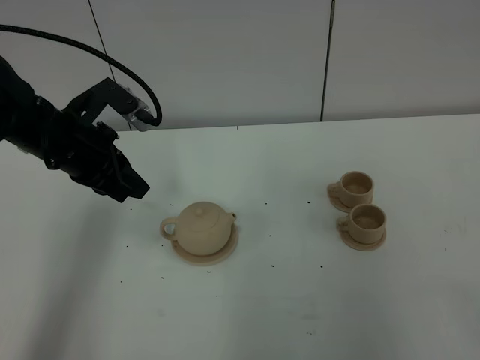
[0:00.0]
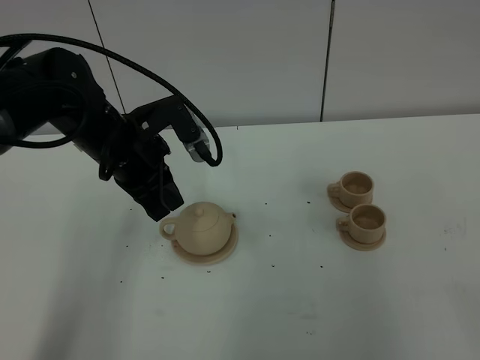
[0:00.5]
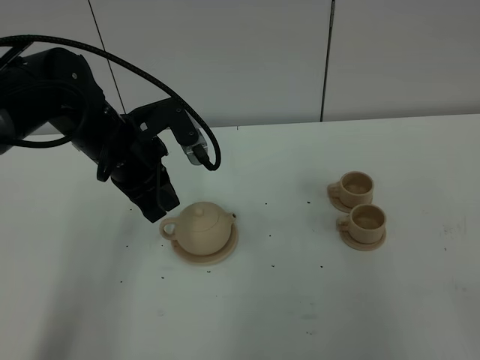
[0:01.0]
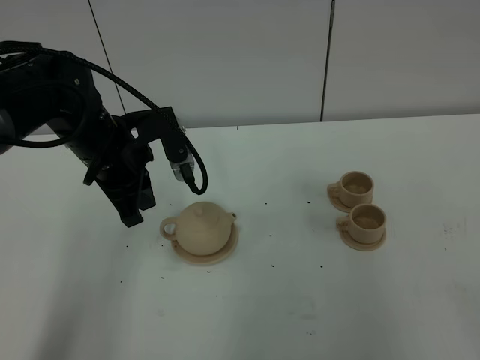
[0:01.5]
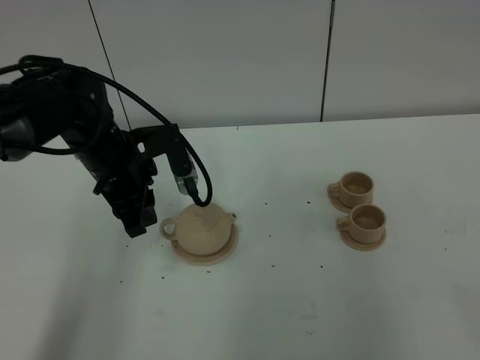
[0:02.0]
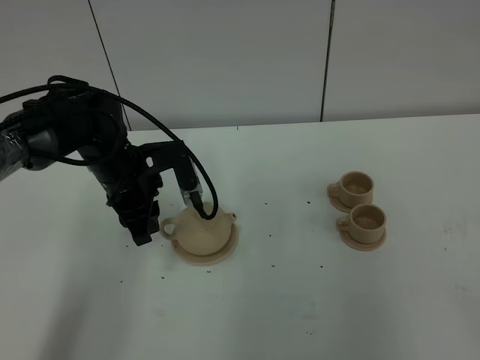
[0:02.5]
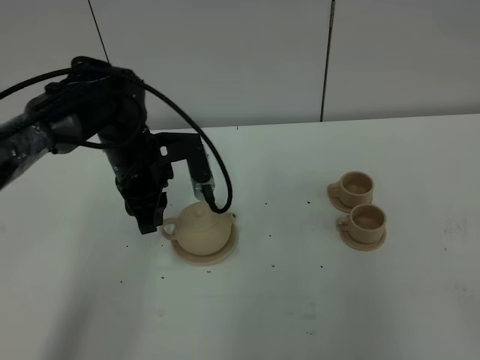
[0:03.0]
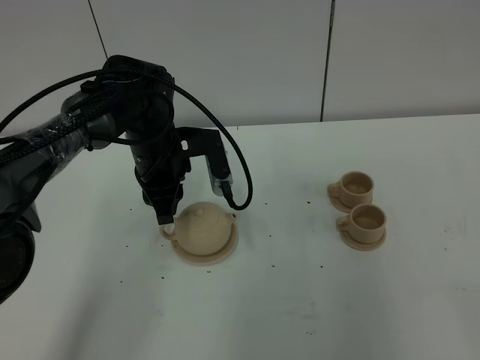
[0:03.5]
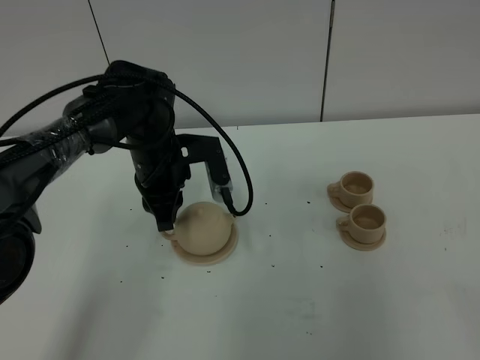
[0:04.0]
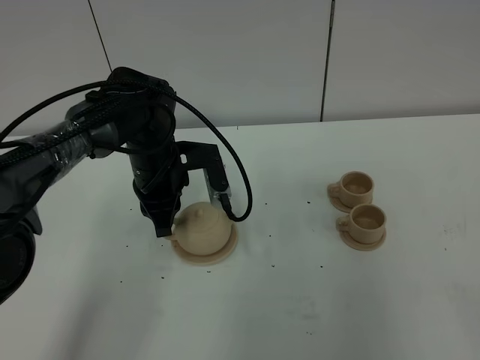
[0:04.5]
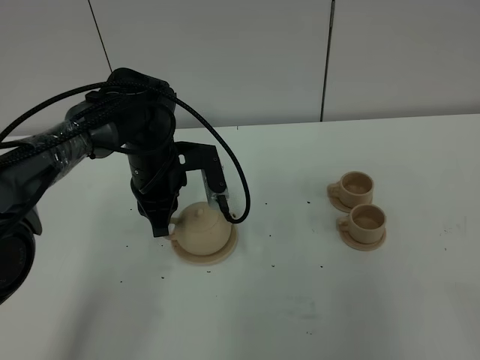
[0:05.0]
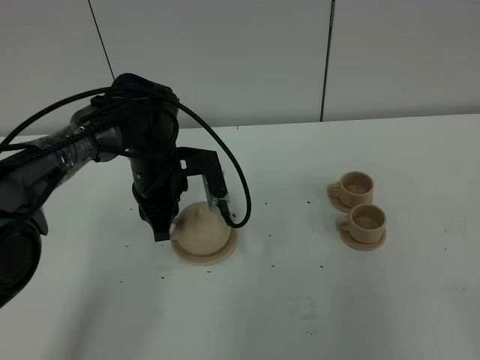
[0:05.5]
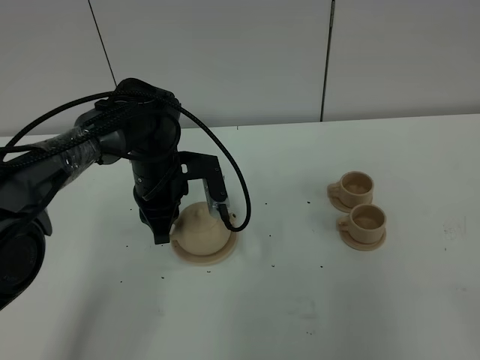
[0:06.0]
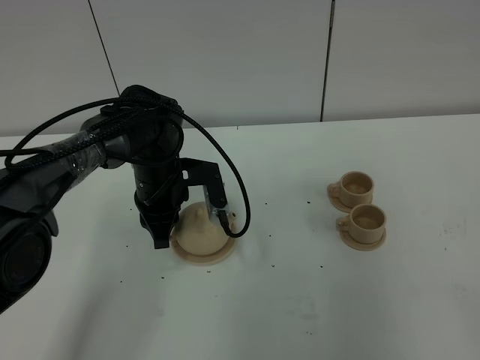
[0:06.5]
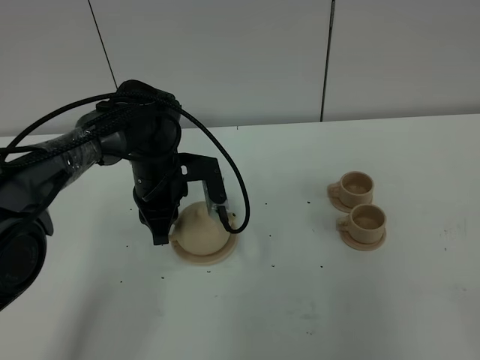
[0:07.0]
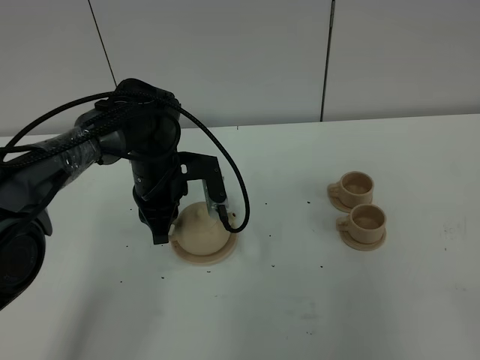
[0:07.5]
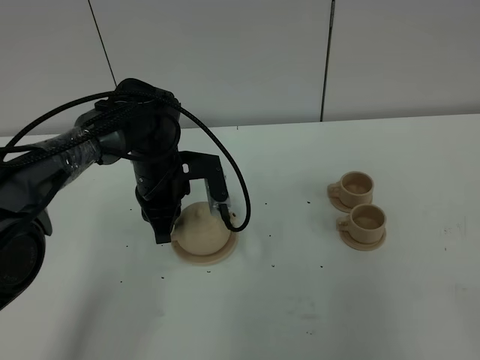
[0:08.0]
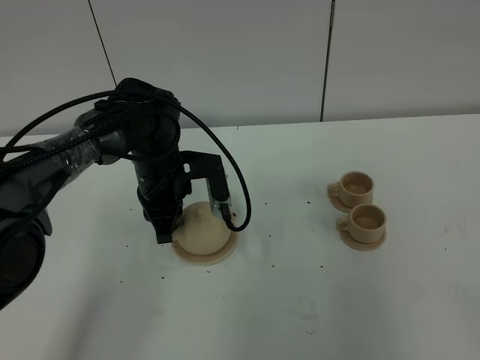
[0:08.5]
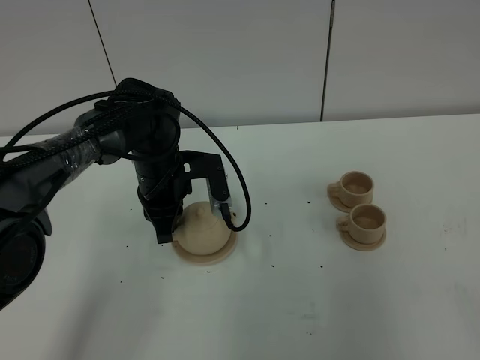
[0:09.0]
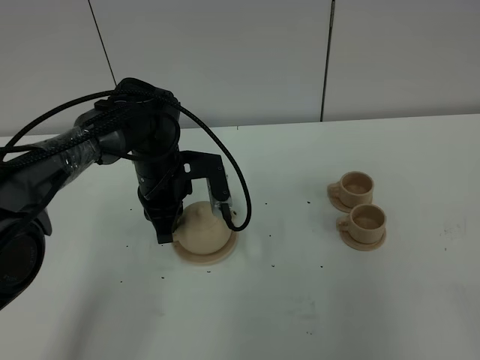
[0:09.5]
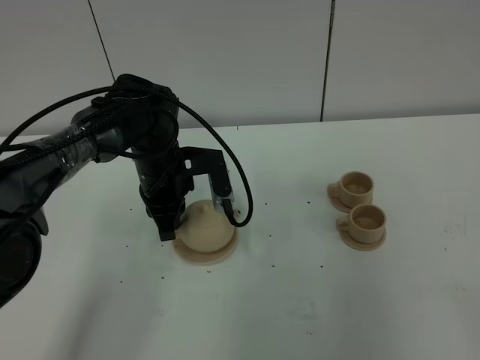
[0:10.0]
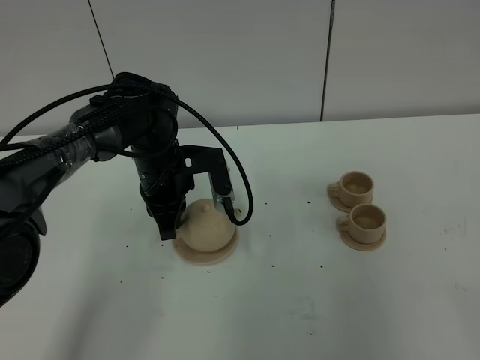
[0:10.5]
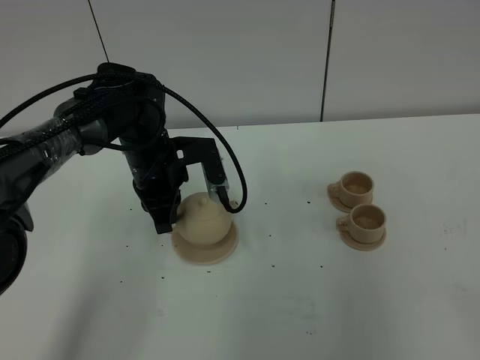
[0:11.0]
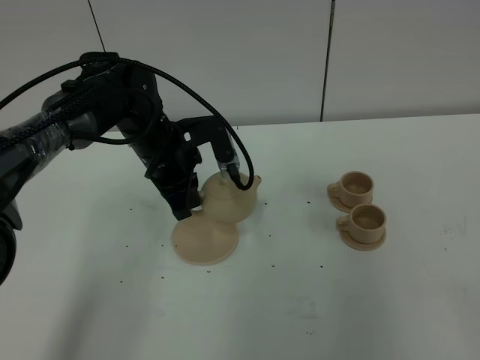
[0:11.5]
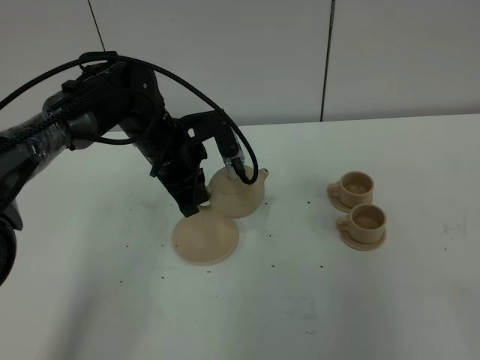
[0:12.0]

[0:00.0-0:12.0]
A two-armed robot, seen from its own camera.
Task of the whole recording: grasp the brown teapot and pour the tea into the two brown teacups one by one, put the brown teapot back in its original place.
Step, 0:00.0 to 0:11.0: Pick up the teapot with the left gripper.
0:00.0 to 0:02.0: The left gripper shifts by roughly 5 cm, and opens up.
0:02.0 to 0:04.0: The left gripper ends up about 5 cm from where it was.
0:04.0 to 0:06.0: The grippers make only small movements.
0:06.0 to 0:10.0: Both grippers stay about where they are.
0:10.0 to 0:12.0: The grippers move only a little.

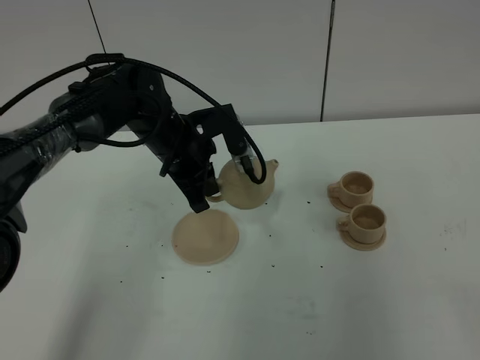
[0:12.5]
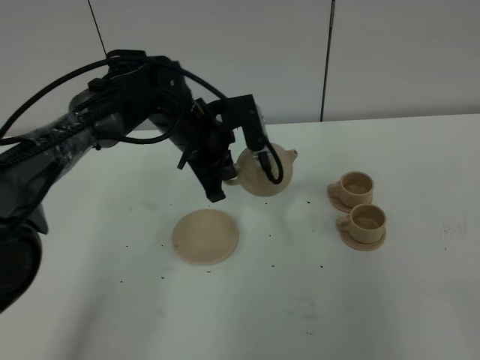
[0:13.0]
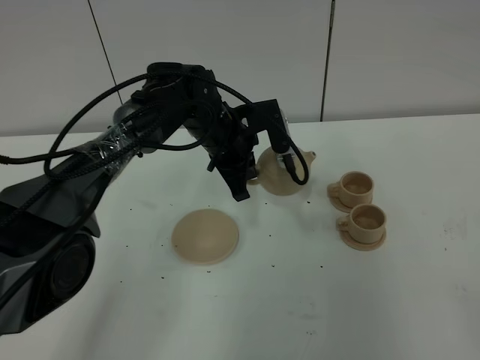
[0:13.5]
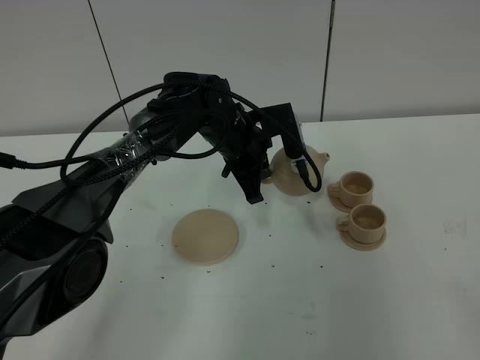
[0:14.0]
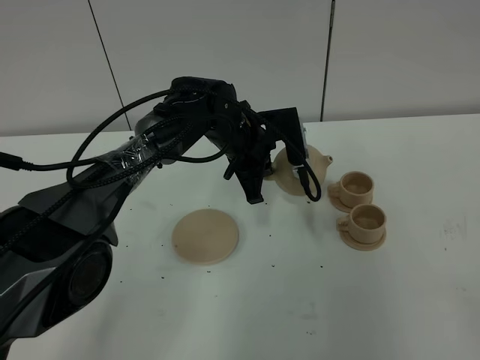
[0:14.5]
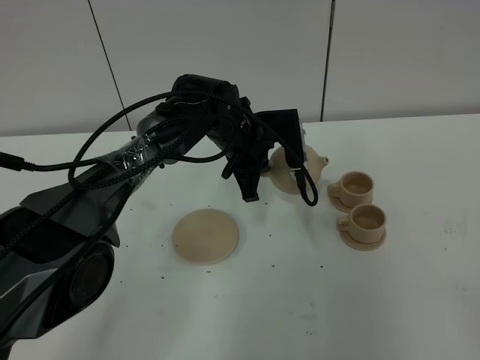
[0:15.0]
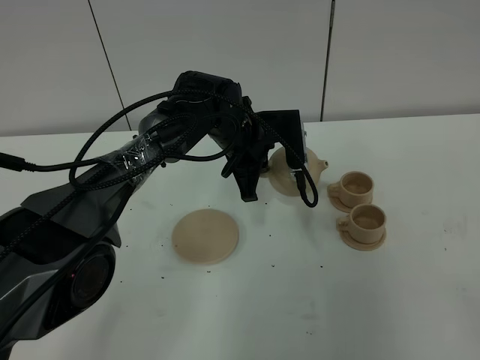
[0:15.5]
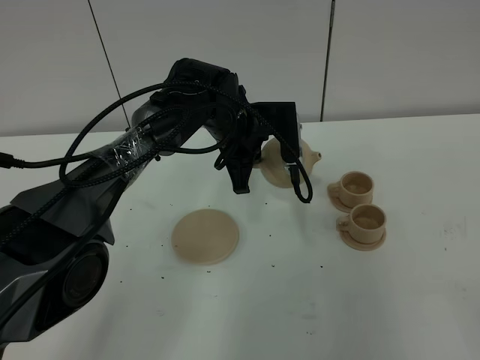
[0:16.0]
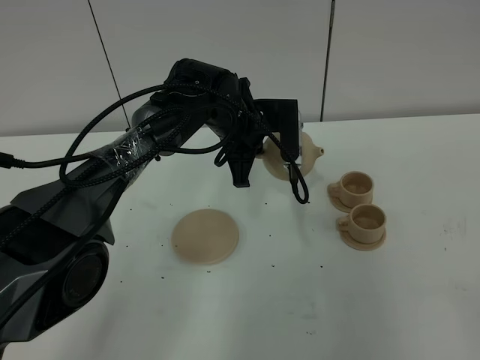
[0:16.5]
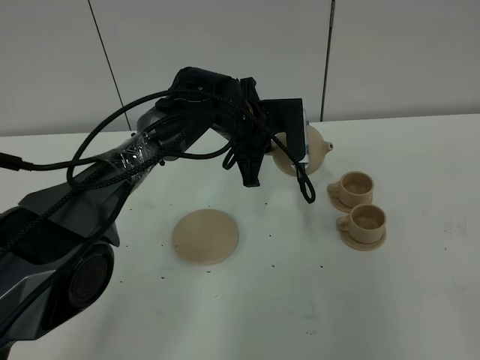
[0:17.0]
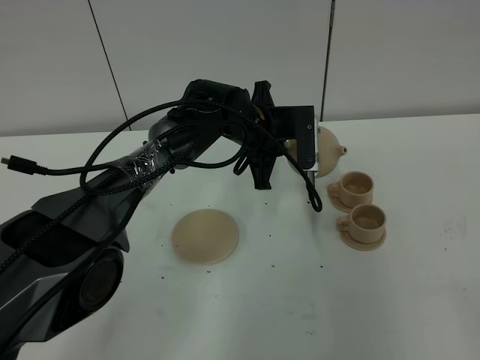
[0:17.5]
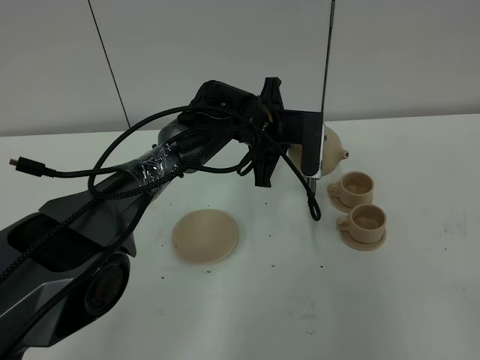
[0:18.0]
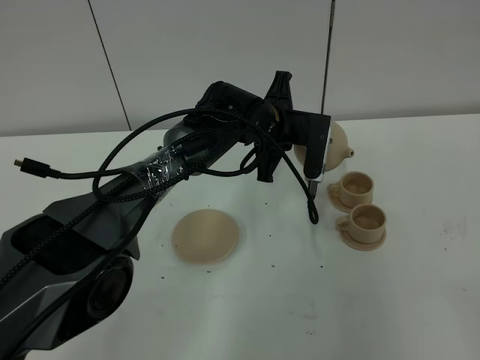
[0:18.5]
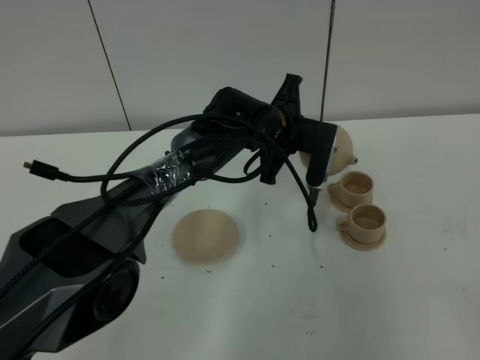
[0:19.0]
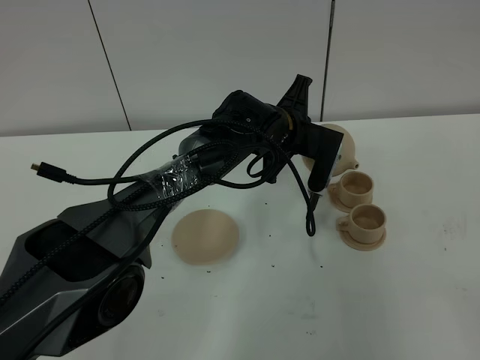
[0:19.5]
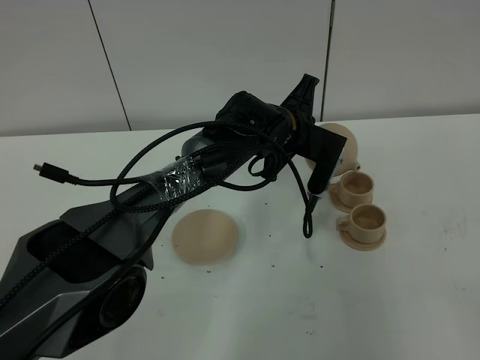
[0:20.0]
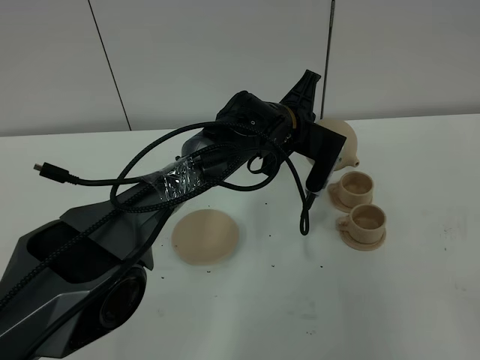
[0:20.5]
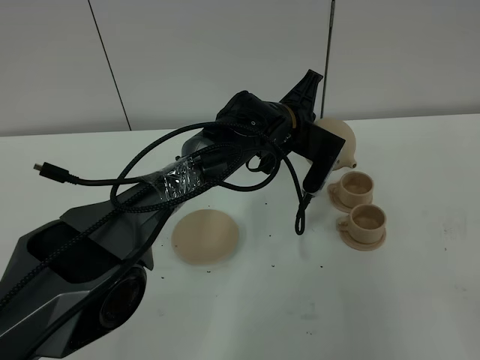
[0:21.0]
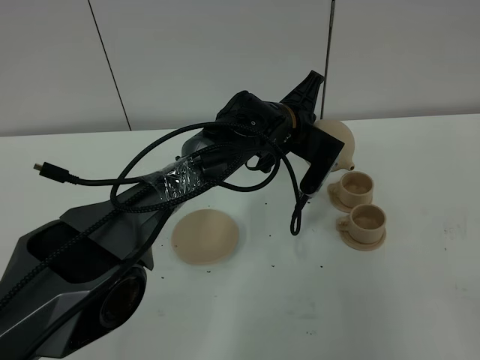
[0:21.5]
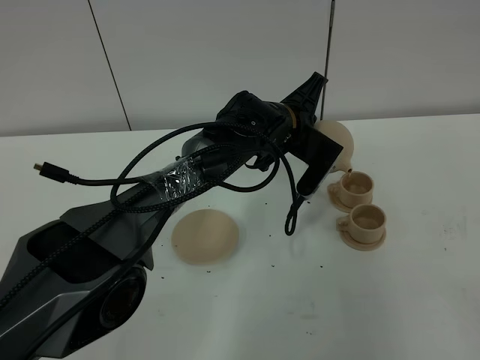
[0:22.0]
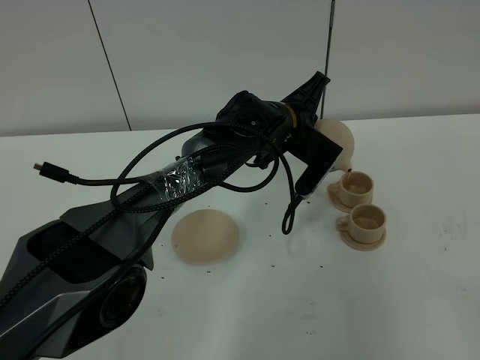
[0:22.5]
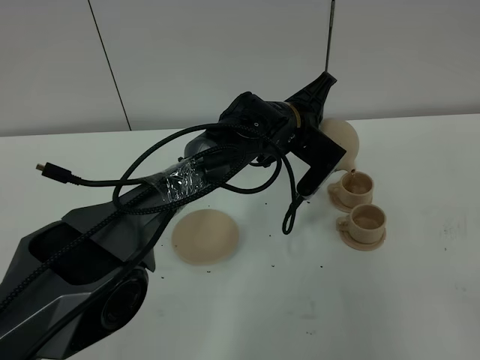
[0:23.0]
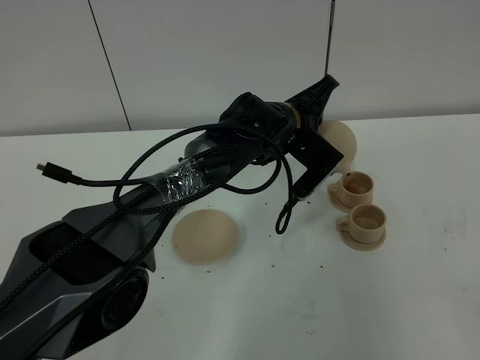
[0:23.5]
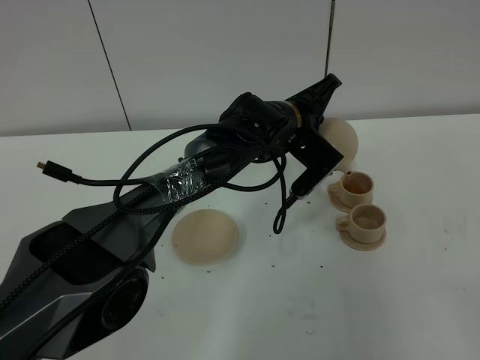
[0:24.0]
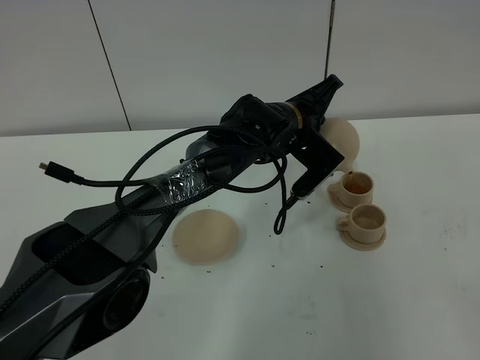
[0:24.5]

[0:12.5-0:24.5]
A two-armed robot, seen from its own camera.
Task of the whole recording: grasp the brown teapot and pour the tea into the two brown teacups one by one, put the brown teapot back in its original place.
0:12.5 to 0:14.5: The left gripper travels to the right by about 10 cm.
0:14.5 to 0:16.5: There are only small adjustments of the grippers.
0:18.5 to 0:20.5: The grippers make only small movements.
0:20.5 to 0:22.5: The grippers make only small movements.
0:22.5 to 0:24.5: The grippers make only small movements.

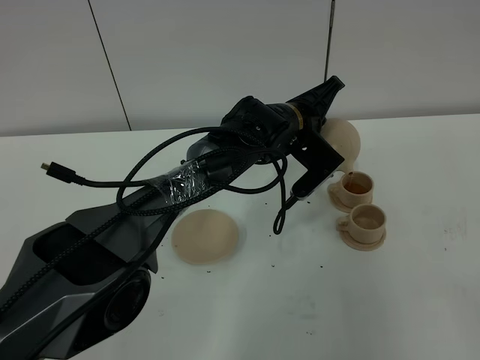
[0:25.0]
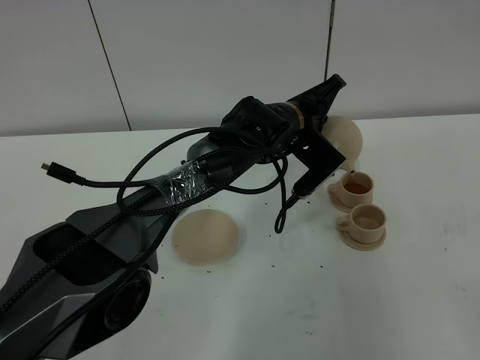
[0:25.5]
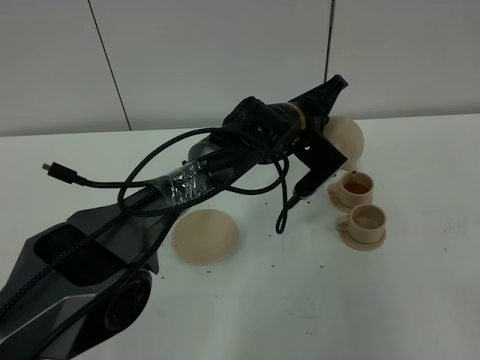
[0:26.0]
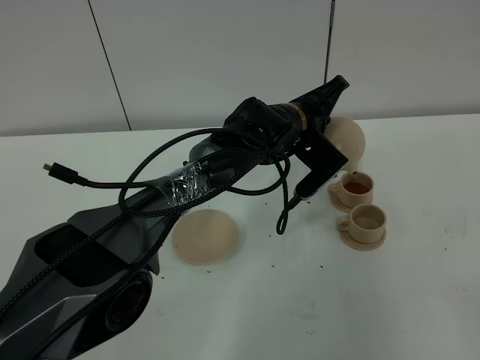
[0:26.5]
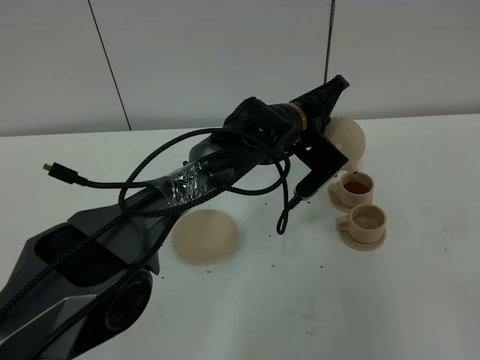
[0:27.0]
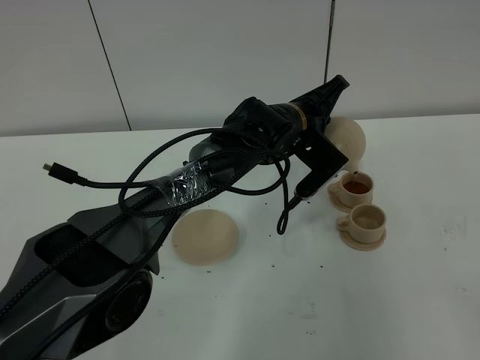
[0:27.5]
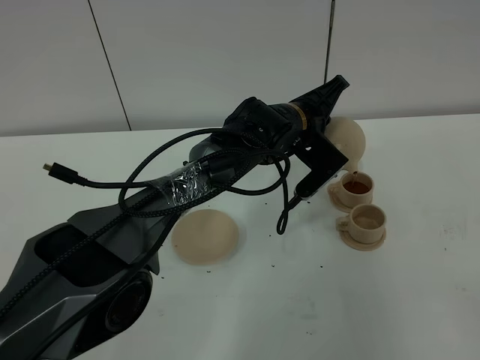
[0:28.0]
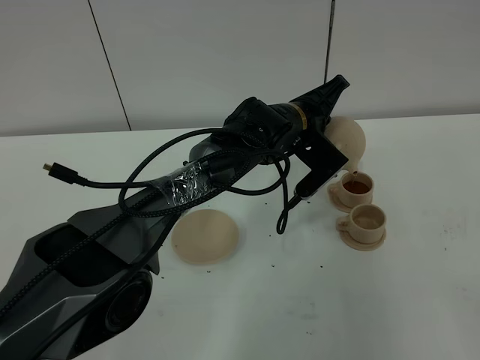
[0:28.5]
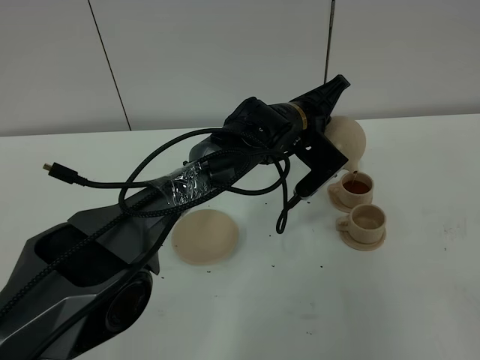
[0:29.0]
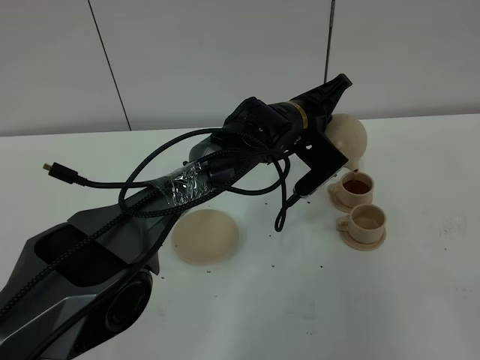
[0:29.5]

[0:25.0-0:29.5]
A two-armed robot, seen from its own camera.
Task of the whole recording: grasp the brown teapot and pour the tea into the two brown teacups one by one, put the brown teapot back in its original place.
0:25.0 to 0:29.5: Both grippers stay about where they are.
